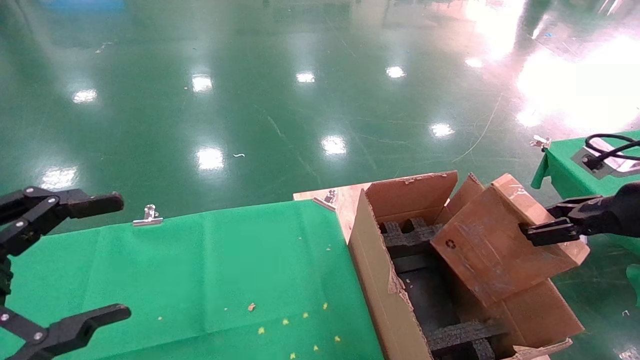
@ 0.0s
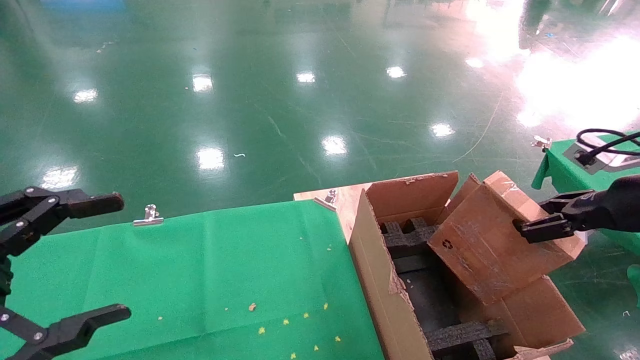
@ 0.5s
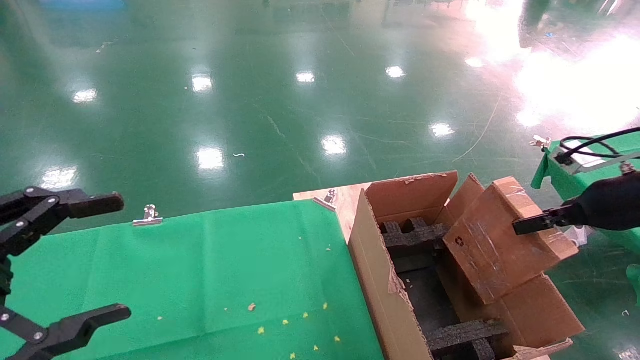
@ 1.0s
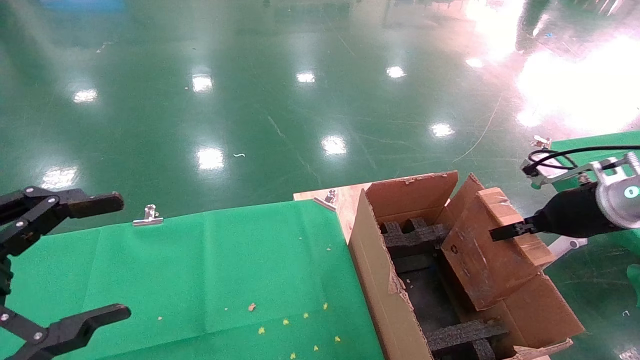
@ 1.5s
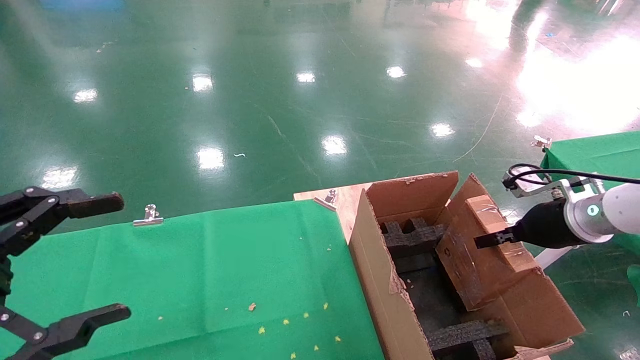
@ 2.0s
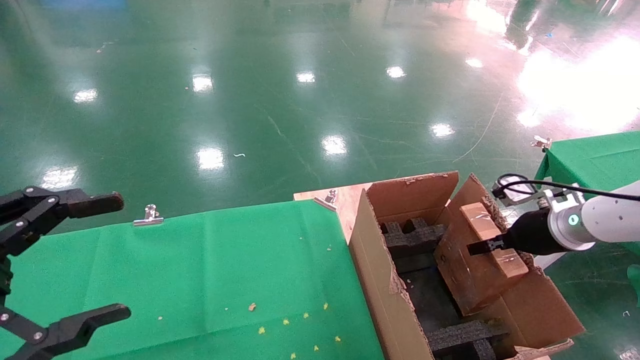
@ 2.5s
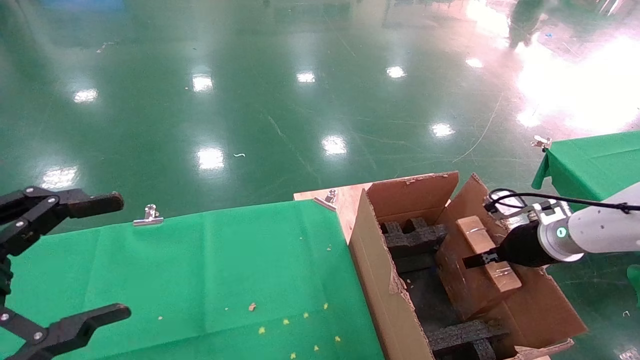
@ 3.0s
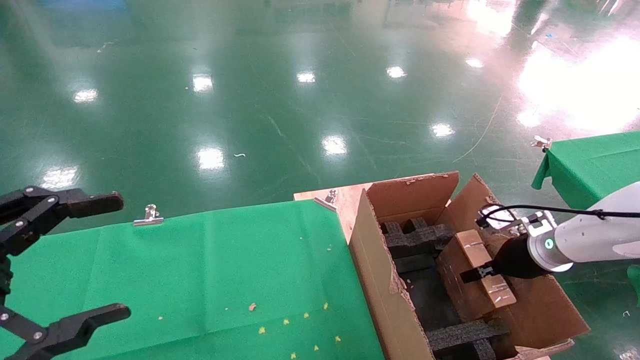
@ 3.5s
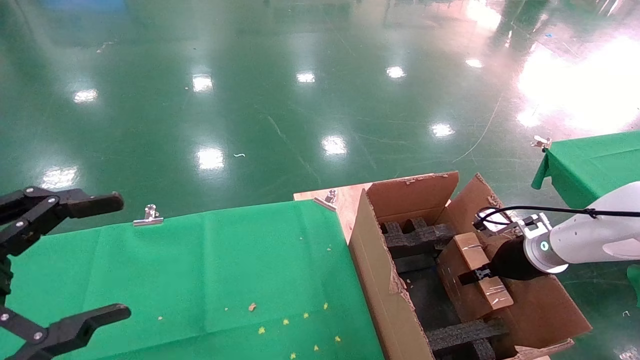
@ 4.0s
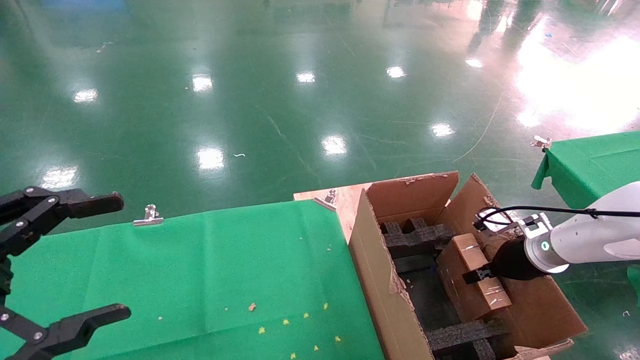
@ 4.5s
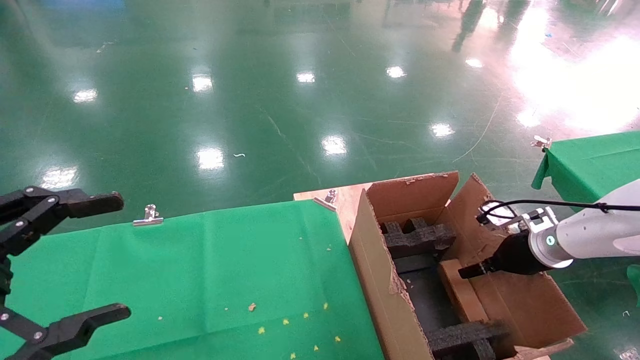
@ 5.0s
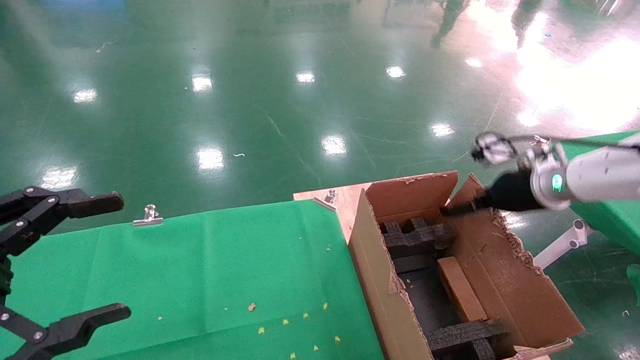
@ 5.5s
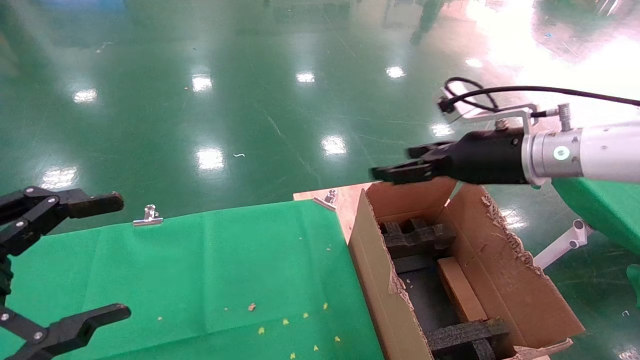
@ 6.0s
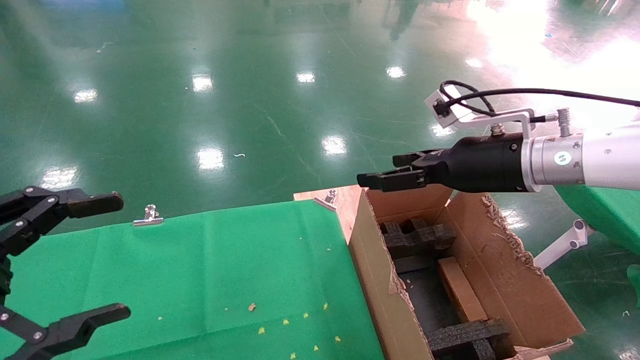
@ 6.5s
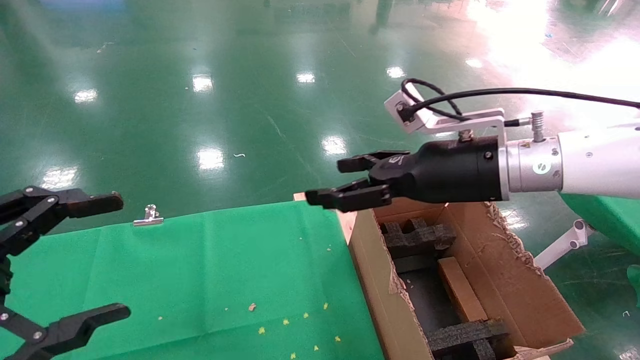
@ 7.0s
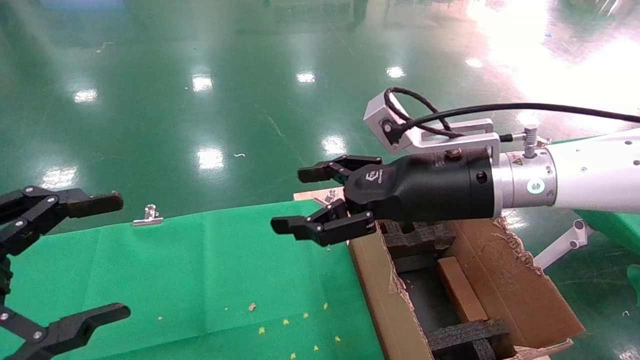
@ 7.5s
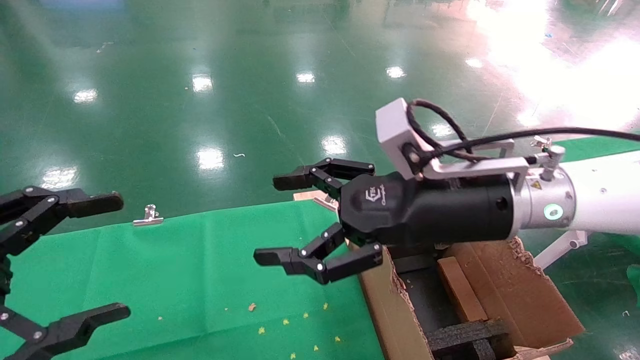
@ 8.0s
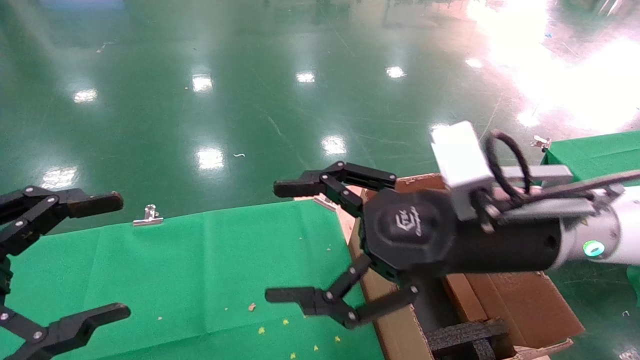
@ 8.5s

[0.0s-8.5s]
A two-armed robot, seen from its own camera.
Task of the whole recording: using a robotic arm to pick up a cardboard box and palace it the carton.
Step, 0.0s to 5.5s: Place the mouse and the power cord paper box into the container.
0.0s to 2.0s: The right gripper moves forward and downward, roughly 10 cm.
2.0s to 4.0s: The right gripper is displaced downward by roughly 10 cm.
4.0s to 6.5s: The right gripper shifts approximately 25 cm upward and to the left, and opens.
6.5s to 8.5s: The right gripper shifts roughly 10 cm backward and to the left.
